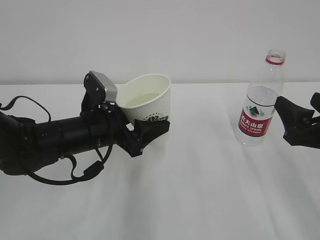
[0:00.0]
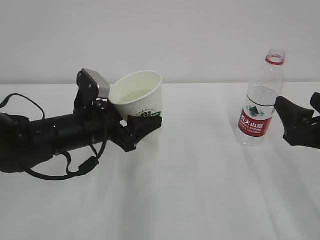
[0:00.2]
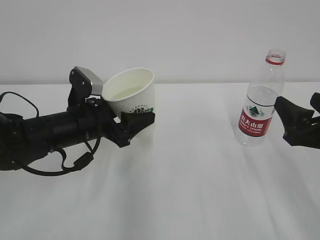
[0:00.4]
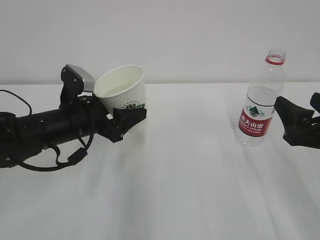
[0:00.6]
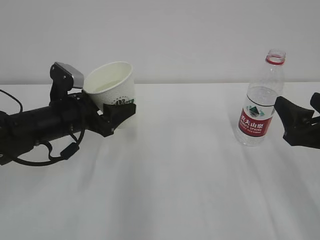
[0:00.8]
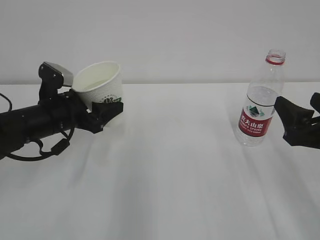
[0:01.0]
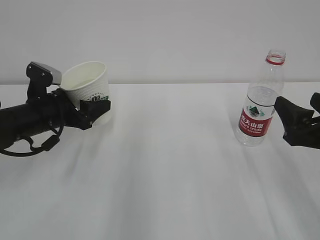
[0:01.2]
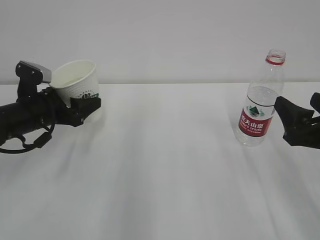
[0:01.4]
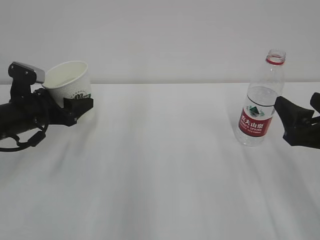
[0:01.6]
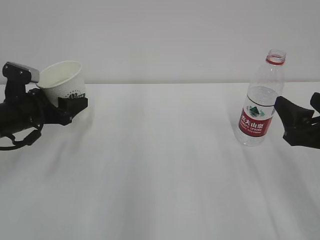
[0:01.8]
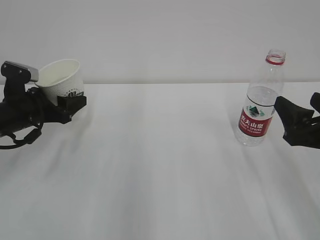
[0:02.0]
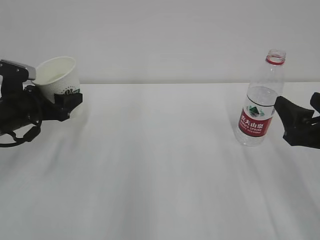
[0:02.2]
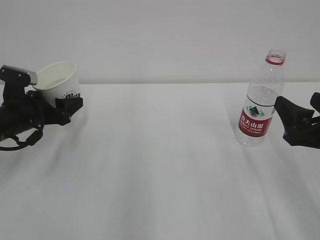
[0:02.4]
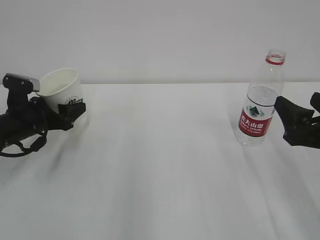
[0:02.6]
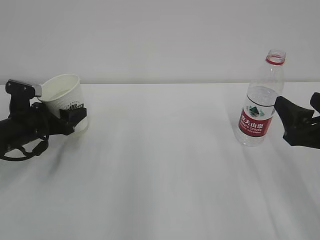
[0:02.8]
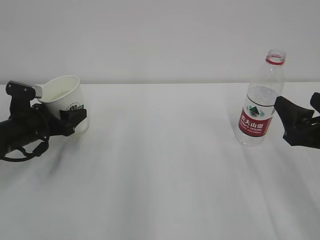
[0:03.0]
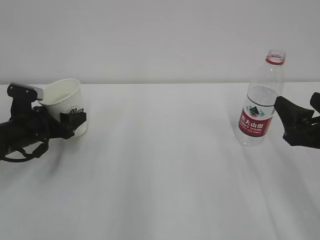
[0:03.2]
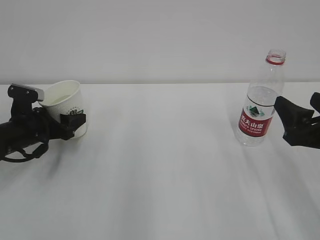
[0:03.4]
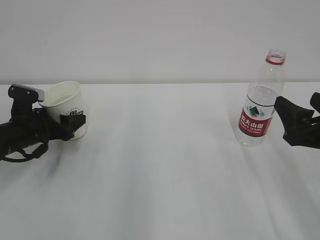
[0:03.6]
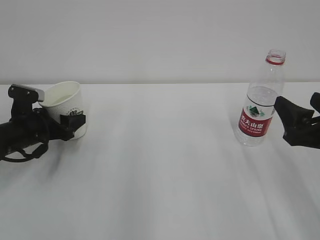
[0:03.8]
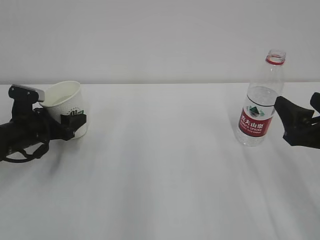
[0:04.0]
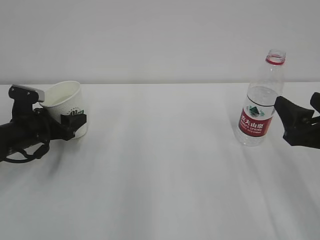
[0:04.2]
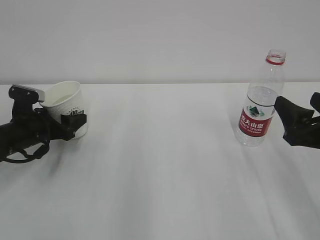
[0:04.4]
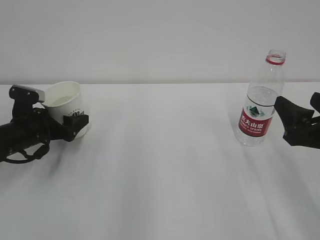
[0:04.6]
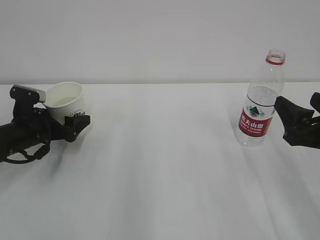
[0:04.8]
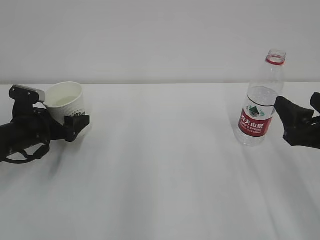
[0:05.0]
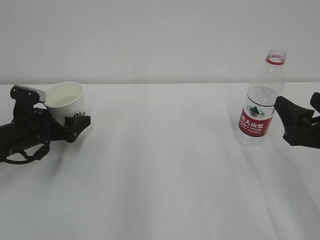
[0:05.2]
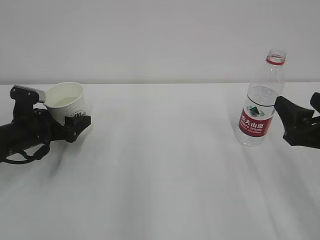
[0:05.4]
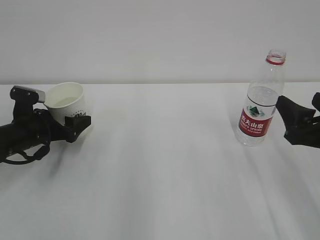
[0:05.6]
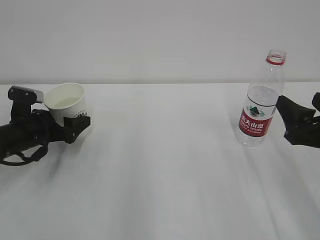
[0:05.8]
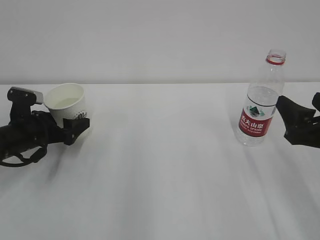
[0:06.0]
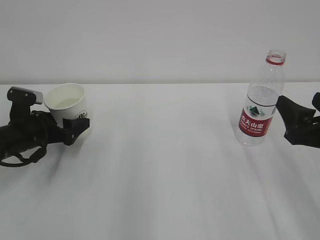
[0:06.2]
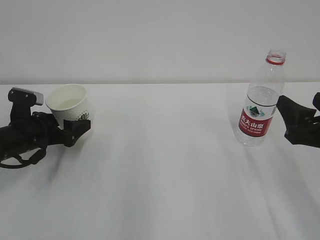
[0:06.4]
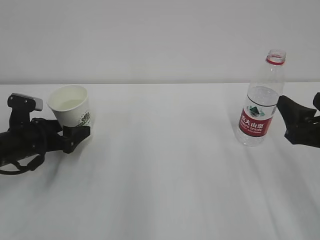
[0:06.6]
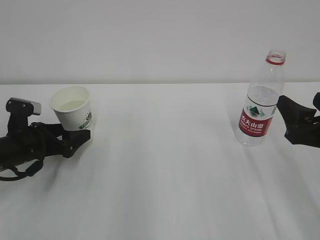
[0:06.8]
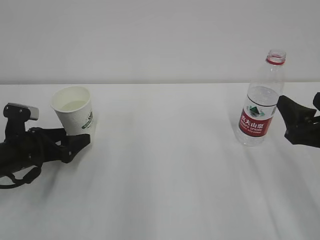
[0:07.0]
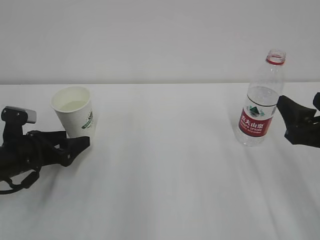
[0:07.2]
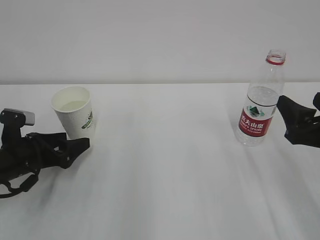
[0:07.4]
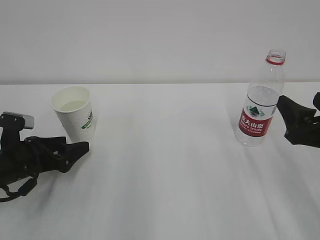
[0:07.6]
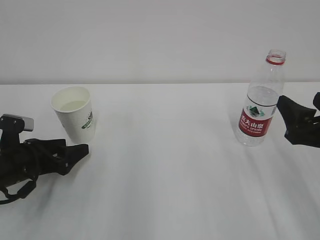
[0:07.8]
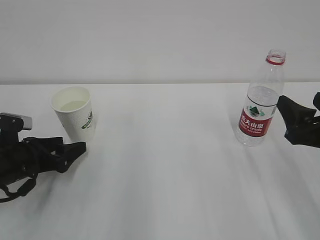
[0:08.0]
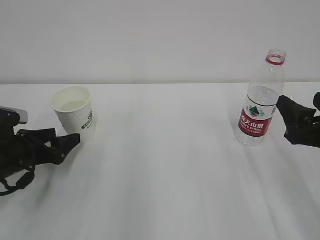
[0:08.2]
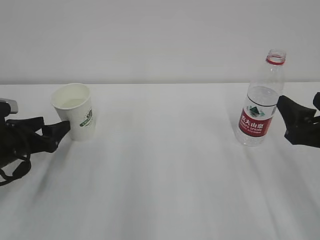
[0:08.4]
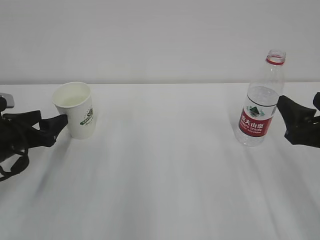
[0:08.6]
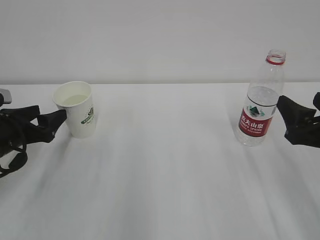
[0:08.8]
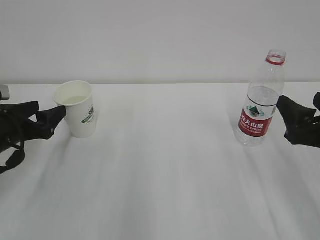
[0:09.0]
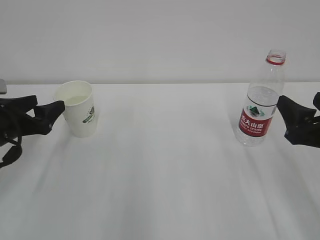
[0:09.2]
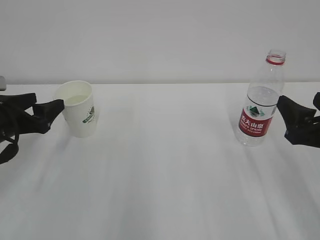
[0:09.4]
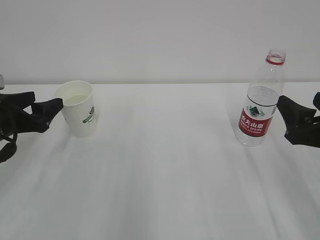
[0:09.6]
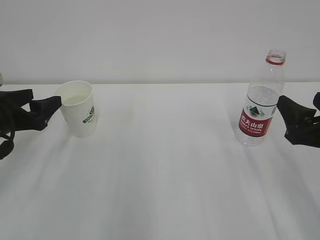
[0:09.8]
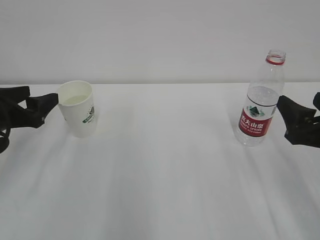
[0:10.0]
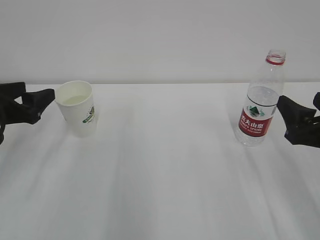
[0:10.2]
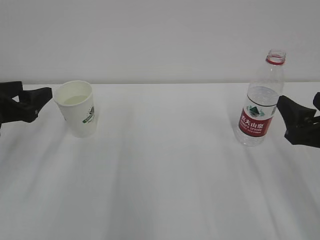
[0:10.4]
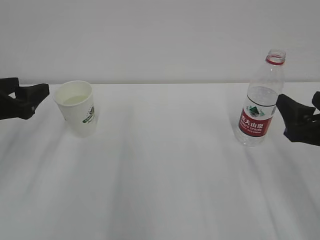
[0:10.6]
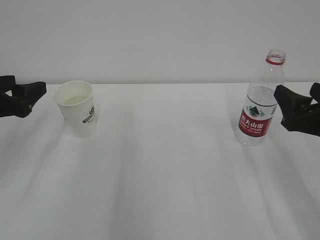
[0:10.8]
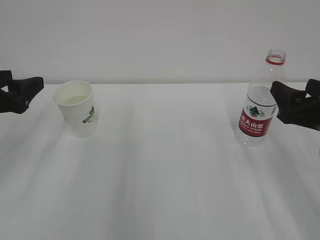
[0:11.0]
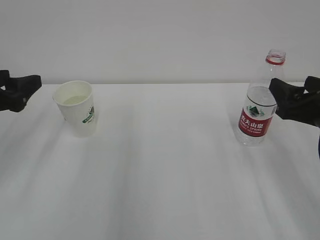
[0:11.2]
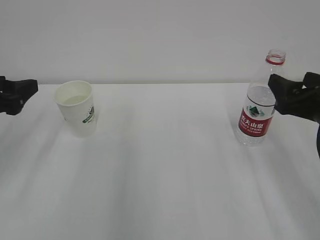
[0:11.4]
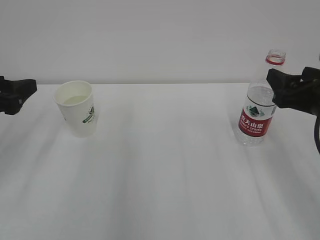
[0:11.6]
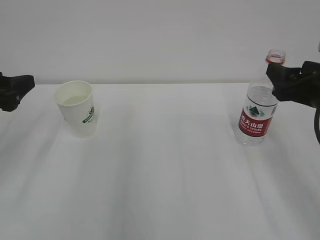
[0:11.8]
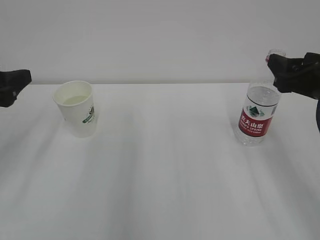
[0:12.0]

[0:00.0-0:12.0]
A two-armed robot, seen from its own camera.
0:00.0 to 0:01.6: The left gripper shifts about 15 cm to the left and forward.
0:01.6 to 0:03.0: The grippers stay close to where they were, moving slightly.
0:03.0 to 0:04.4: Both grippers stay put.
0:04.4 to 0:06.0: The left gripper opens up.
0:06.0 to 0:07.6: The left gripper shifts approximately 5 cm backward.
0:07.6 to 0:09.0: The left gripper moves upward, some 5 cm.
0:09.0 to 0:10.4: The left gripper moves upward, approximately 5 cm.
0:10.4 to 0:12.0: The left gripper changes place by some 5 cm. Meanwhile the right gripper is displaced forward by some 5 cm.

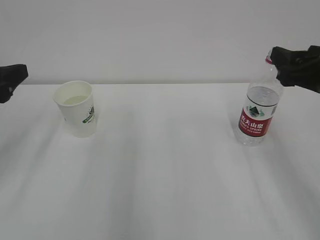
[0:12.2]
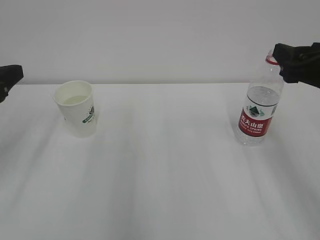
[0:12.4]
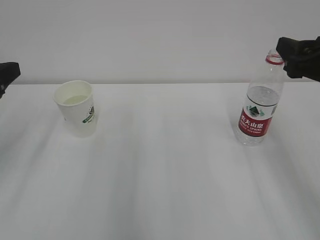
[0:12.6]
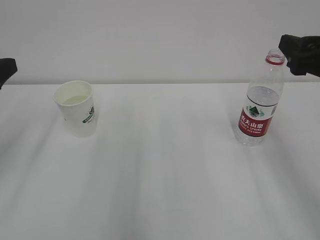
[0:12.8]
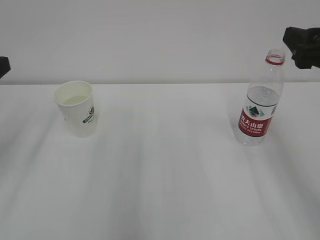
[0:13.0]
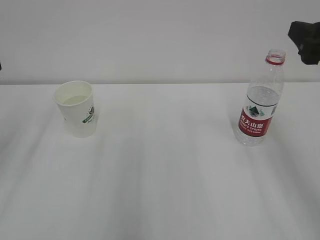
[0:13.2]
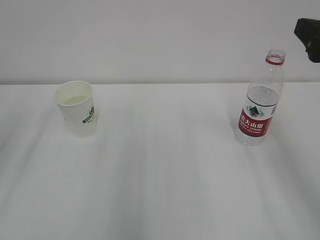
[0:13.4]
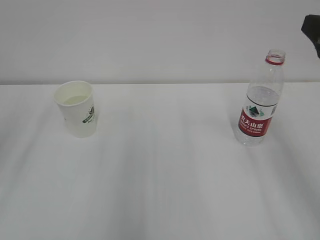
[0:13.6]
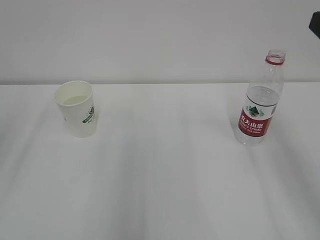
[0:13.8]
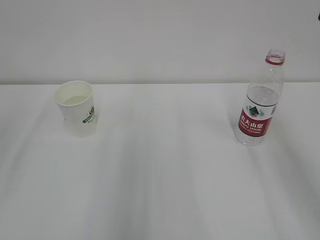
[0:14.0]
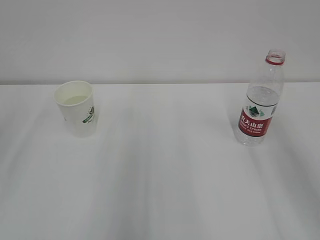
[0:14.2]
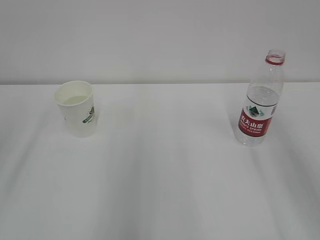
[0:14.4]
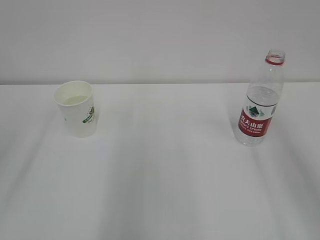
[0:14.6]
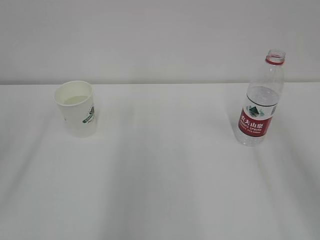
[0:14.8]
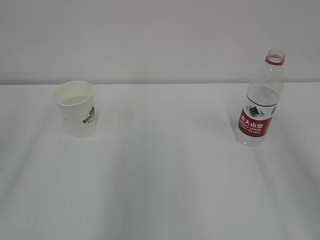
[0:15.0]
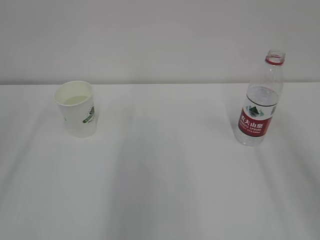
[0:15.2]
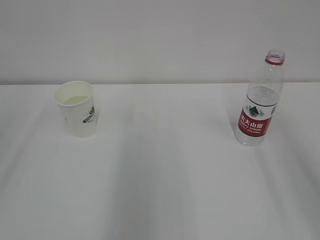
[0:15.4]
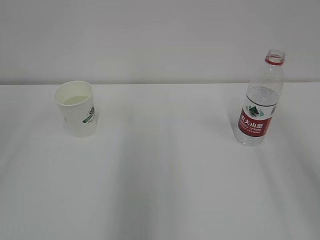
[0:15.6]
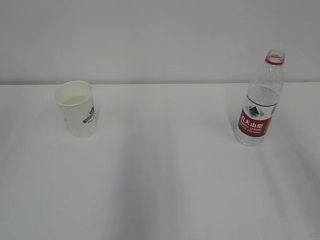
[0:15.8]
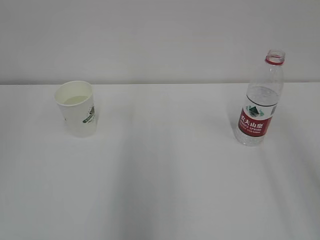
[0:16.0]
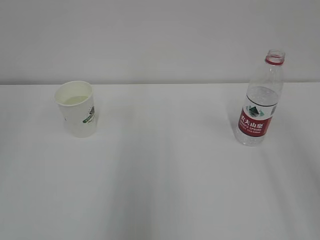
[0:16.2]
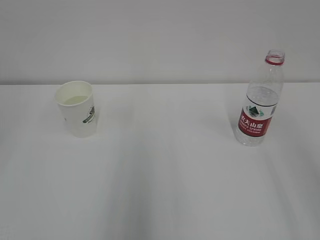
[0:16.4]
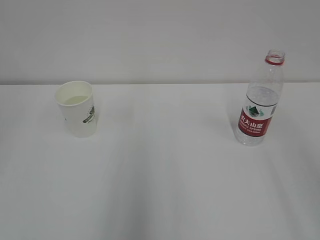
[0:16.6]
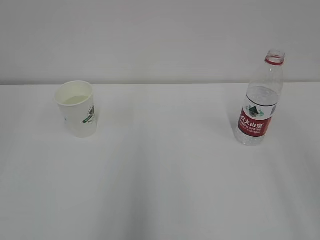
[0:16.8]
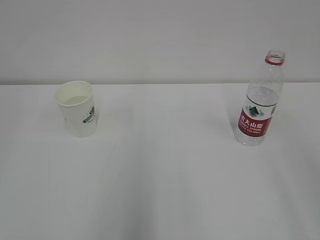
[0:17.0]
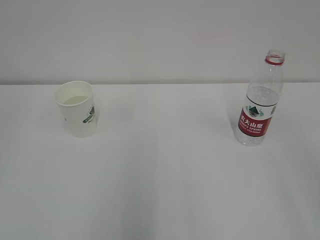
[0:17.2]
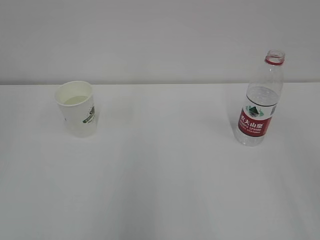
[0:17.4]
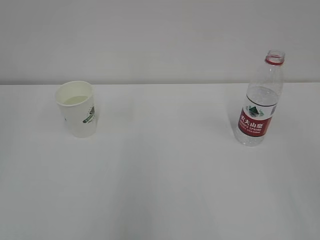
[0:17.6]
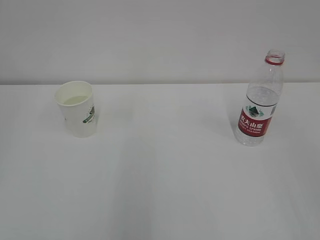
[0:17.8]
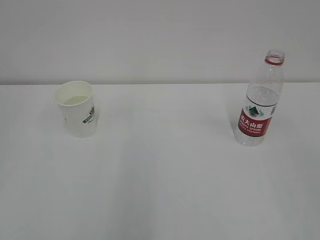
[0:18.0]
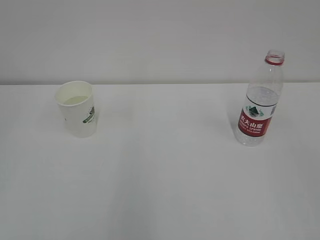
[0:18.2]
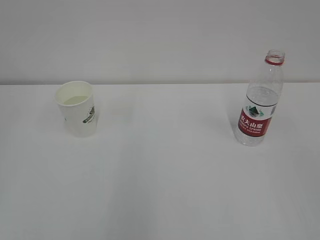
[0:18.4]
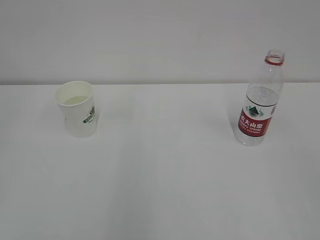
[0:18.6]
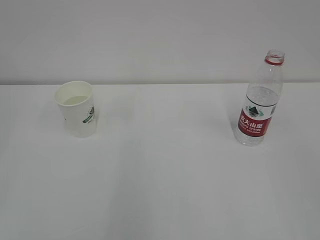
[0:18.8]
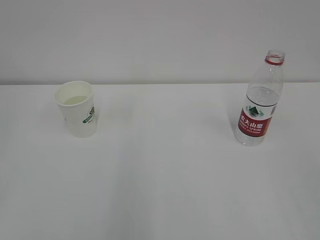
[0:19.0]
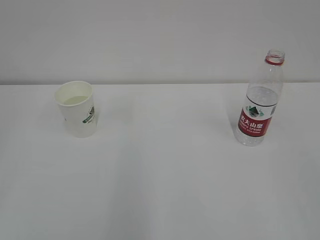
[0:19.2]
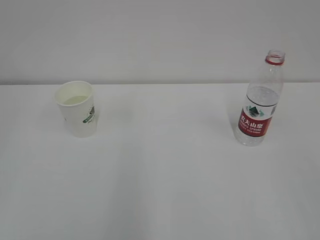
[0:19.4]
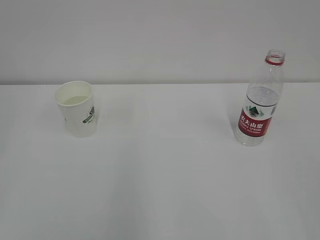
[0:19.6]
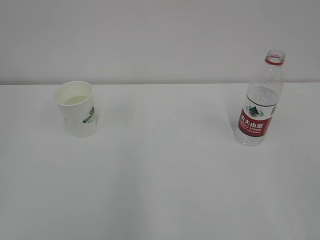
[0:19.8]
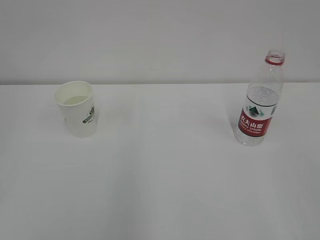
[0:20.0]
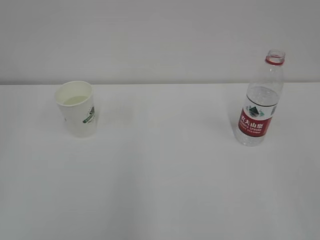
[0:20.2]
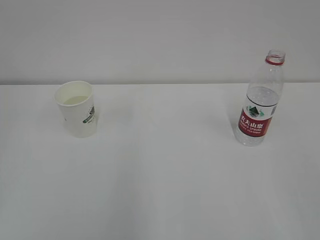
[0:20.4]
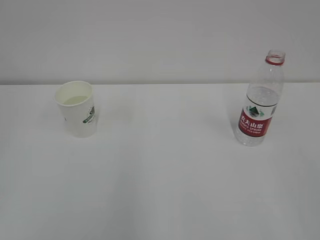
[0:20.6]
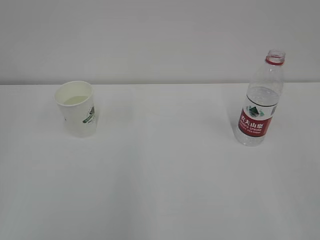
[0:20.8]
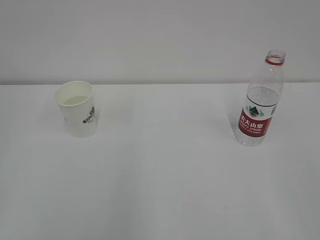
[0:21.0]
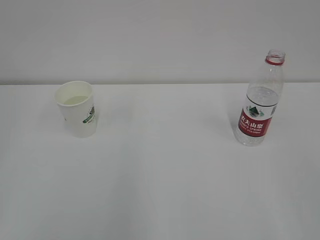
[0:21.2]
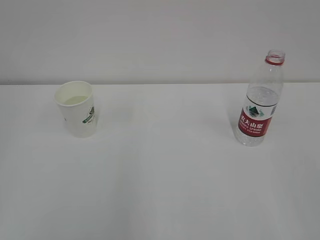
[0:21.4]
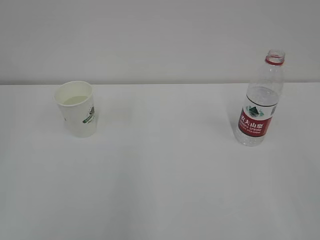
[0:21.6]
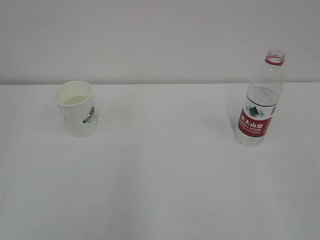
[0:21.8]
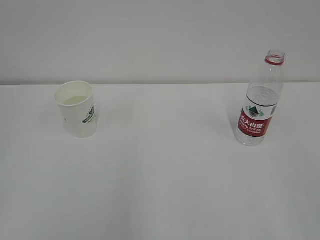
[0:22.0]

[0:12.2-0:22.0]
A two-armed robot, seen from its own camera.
0:12.2 to 0:13.6: The grippers both shift upward by approximately 5 cm.
0:13.6 to 0:15.0: The right gripper travels backward by roughly 10 cm.

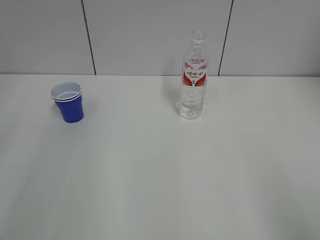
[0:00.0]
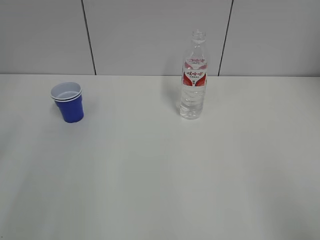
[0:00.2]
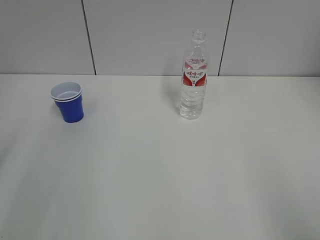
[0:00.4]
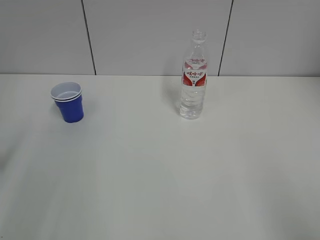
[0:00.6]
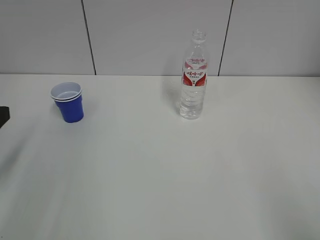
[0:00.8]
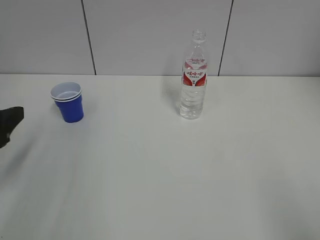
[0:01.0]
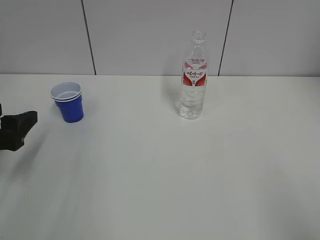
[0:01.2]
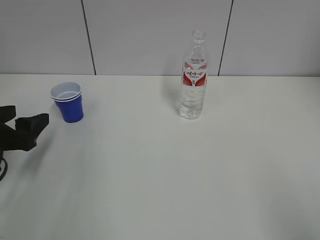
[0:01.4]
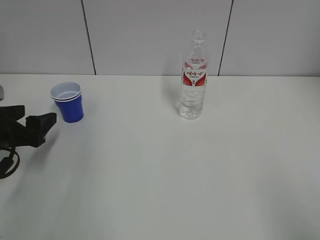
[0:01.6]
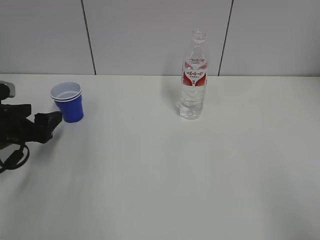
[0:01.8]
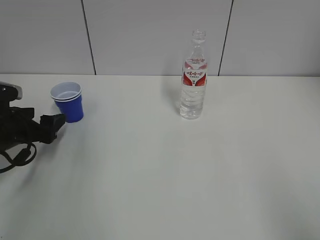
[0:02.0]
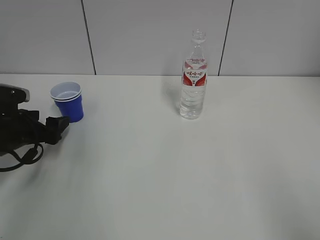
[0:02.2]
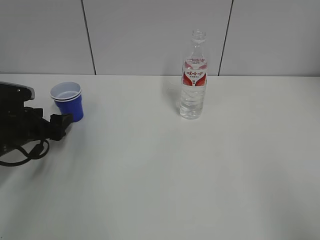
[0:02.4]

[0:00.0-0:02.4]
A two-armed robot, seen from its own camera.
0:00.0 to 0:01.2: The left gripper heads downward and forward, covering about 15 cm, and opens its fingers.
0:01.2 to 0:02.4: The left gripper shifts some 15 cm forward and downward.
